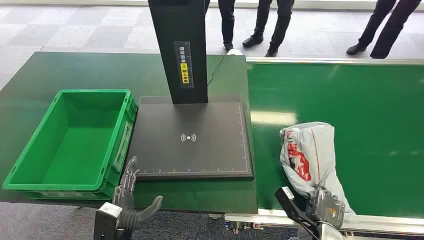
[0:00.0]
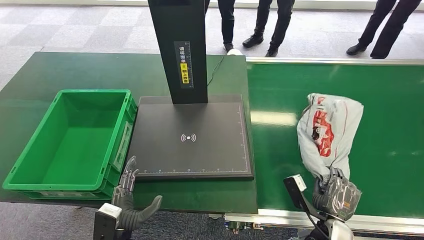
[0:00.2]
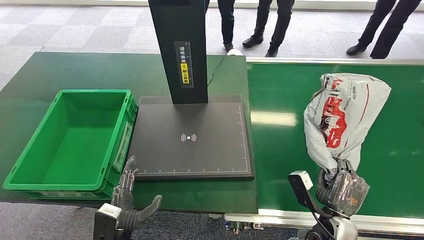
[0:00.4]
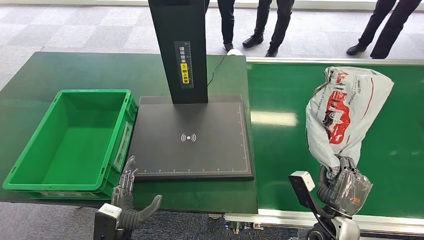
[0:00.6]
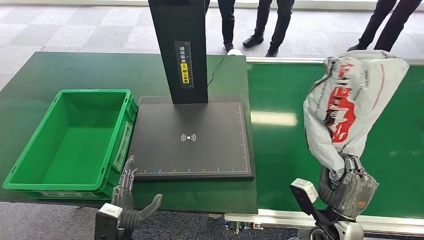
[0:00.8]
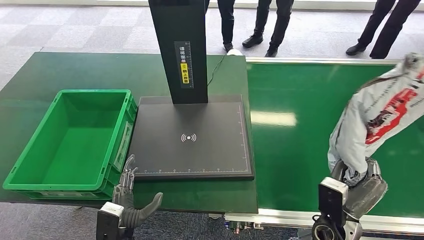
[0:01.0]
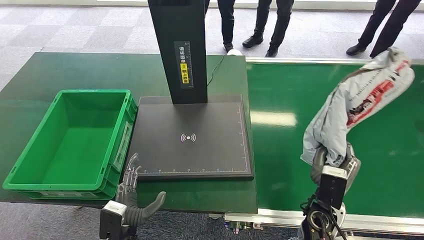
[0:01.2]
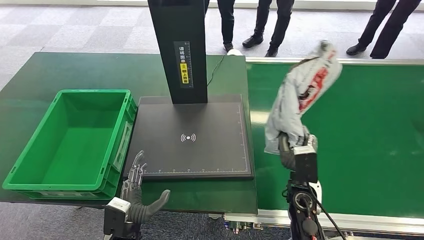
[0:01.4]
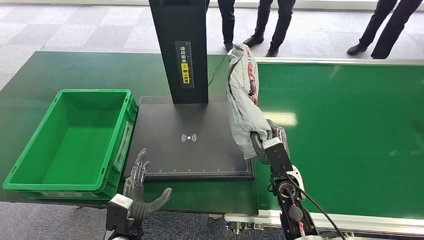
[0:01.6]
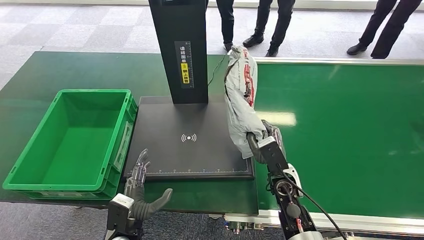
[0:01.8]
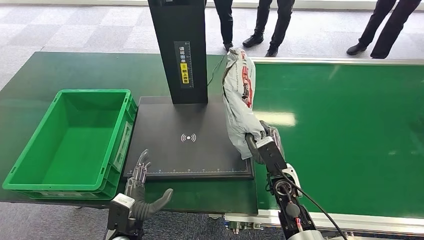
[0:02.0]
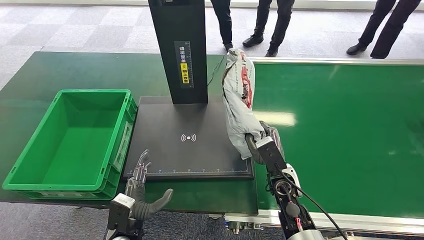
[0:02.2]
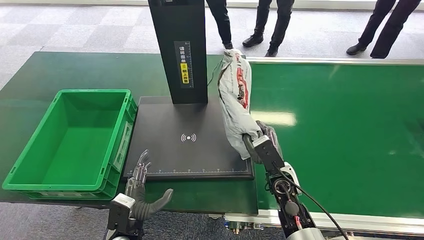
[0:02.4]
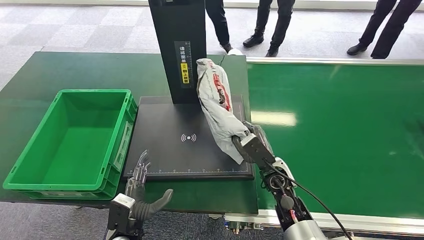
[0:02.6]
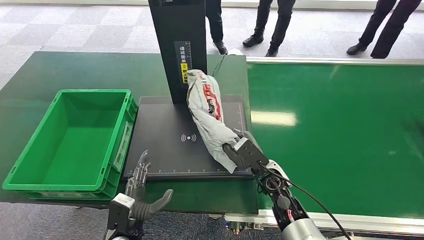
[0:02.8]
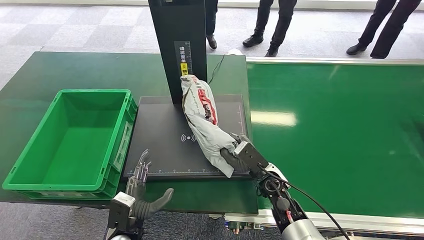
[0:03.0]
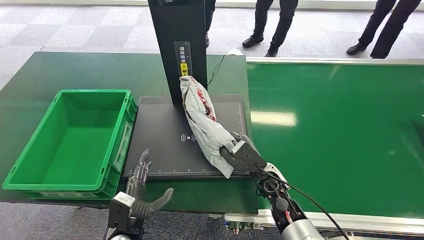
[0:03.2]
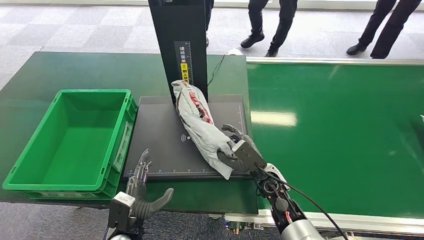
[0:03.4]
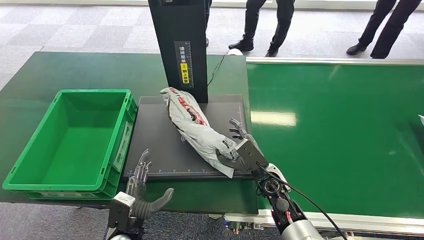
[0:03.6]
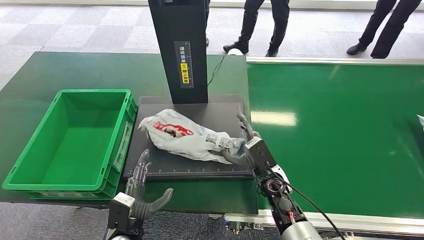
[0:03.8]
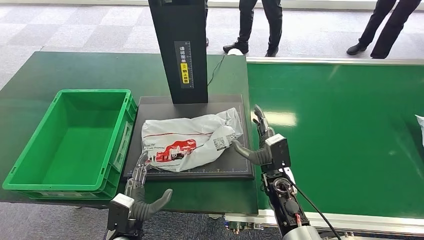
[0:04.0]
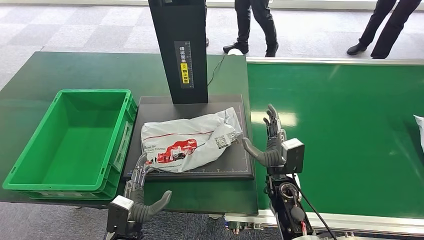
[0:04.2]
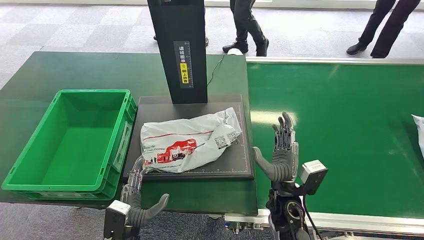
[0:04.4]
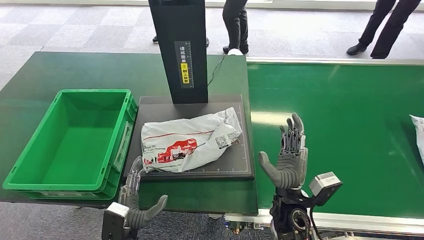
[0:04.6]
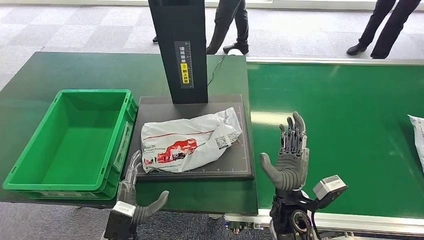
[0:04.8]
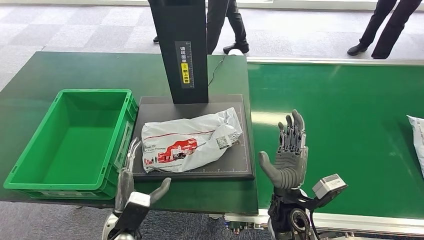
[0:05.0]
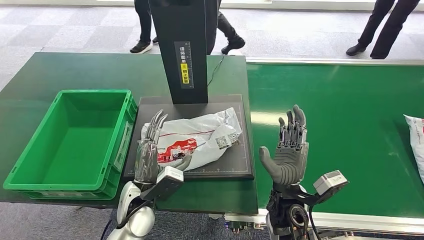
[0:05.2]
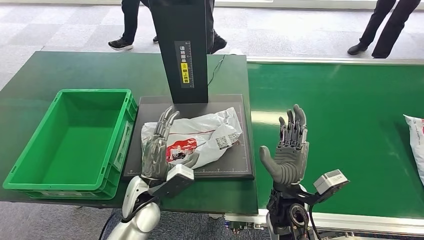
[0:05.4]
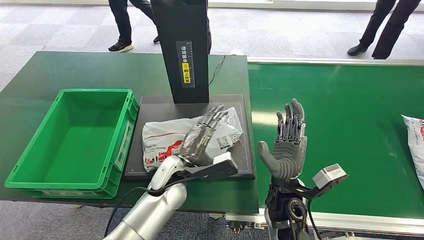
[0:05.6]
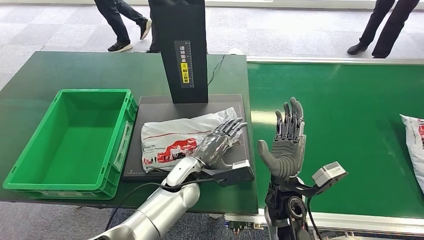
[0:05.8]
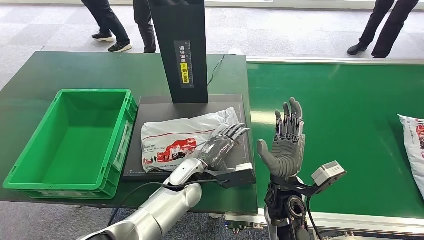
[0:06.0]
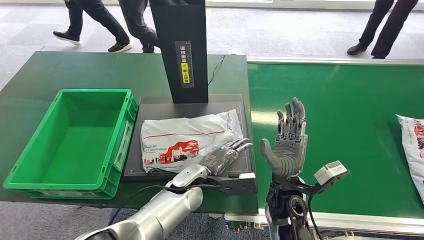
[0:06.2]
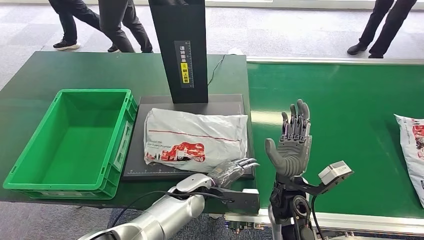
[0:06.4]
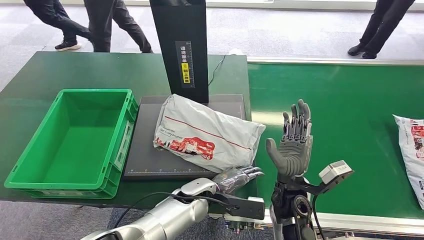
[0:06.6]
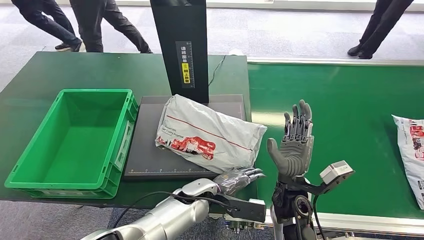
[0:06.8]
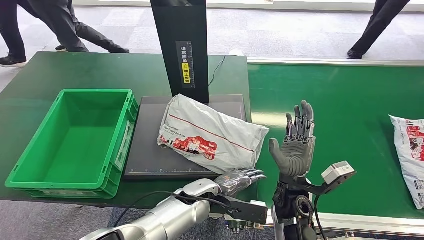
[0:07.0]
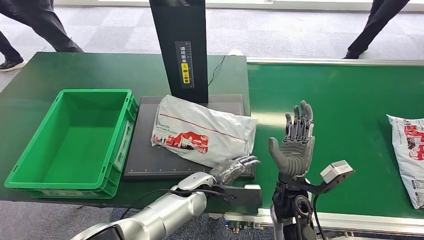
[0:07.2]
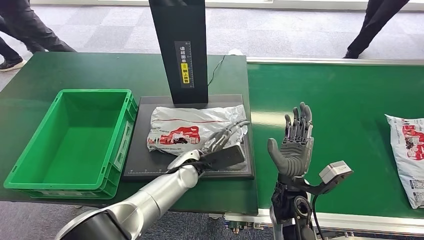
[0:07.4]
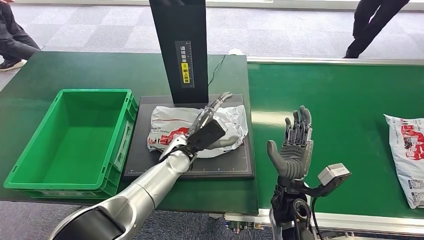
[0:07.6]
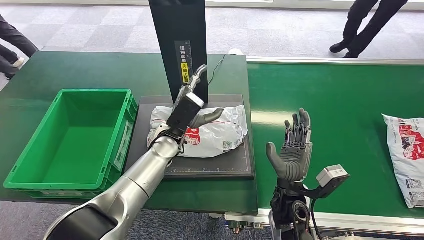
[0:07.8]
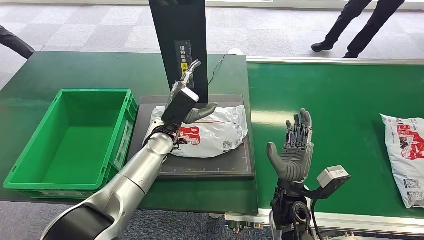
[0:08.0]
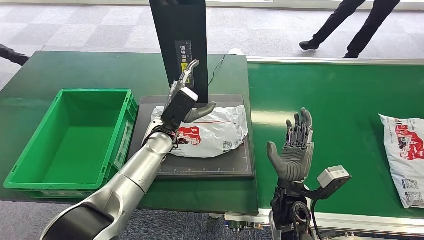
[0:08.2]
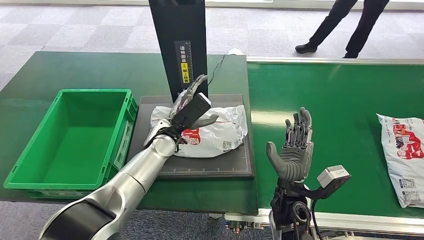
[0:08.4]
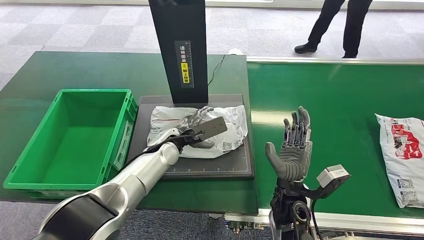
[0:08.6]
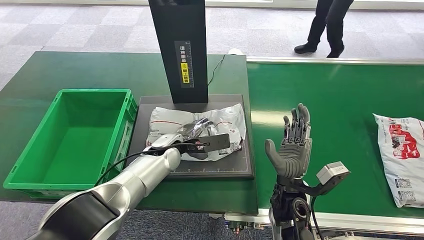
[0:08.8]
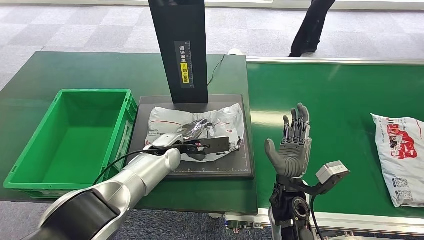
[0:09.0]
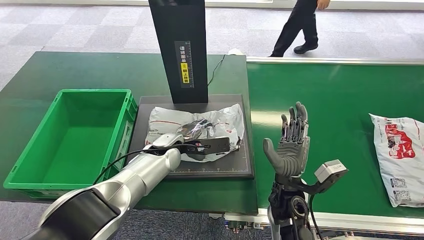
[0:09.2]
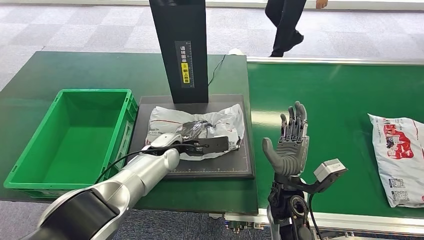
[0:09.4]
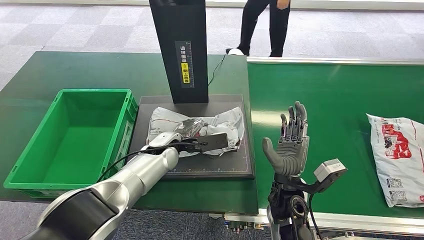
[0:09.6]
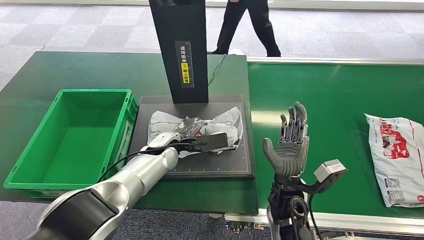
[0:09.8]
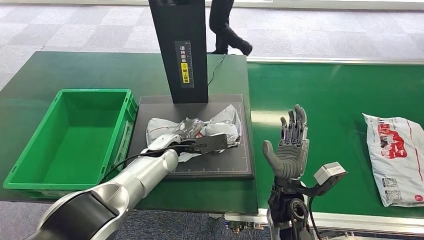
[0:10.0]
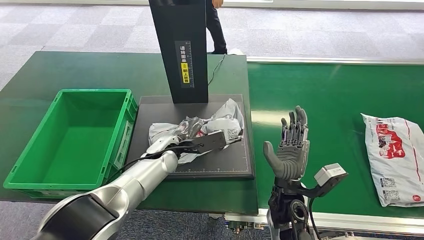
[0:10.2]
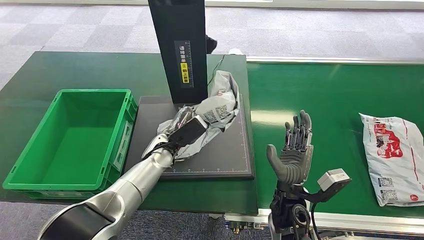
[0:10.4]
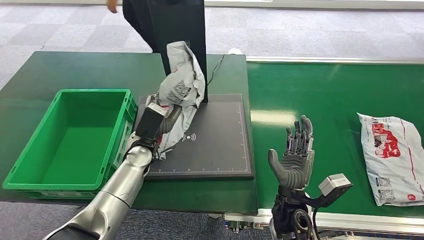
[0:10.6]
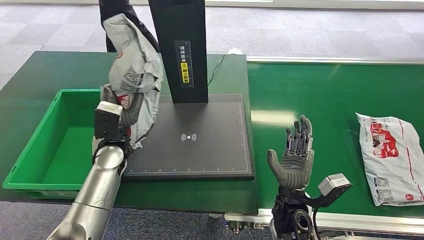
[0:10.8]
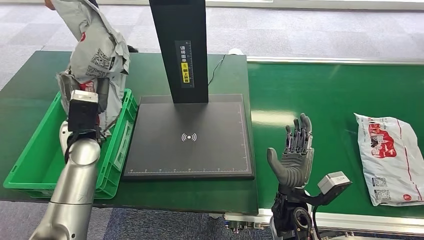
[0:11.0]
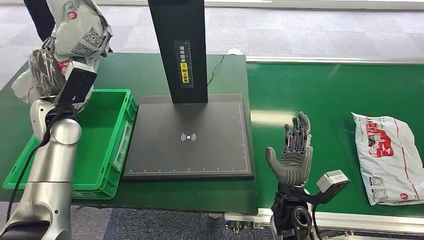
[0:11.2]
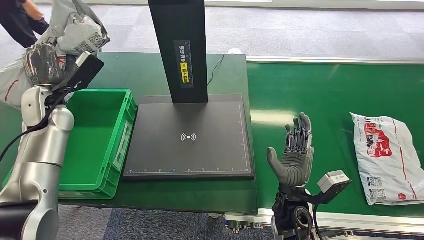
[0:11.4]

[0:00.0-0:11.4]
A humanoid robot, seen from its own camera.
Step, 0:00.0 to 0:00.4: Pick up the package from the conveyor belt.
0:01.4 to 0:02.8: The right hand goes approximately 5 cm to the left.
0:04.2 to 0:05.6: The left hand is displaced forward, upward and to the right by about 20 cm, while the right hand heads upward, covering about 5 cm.

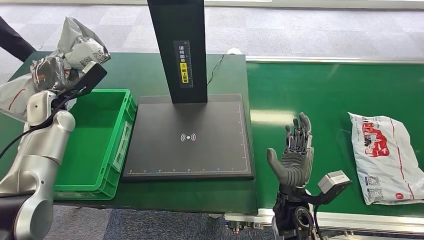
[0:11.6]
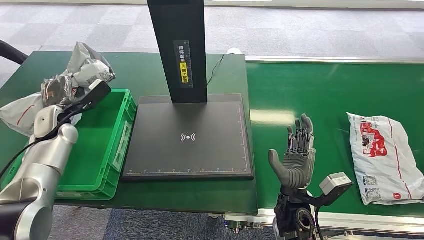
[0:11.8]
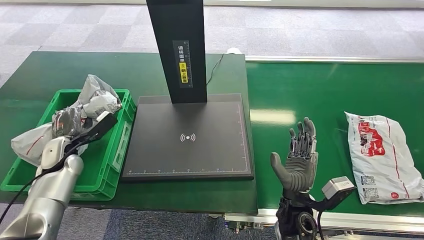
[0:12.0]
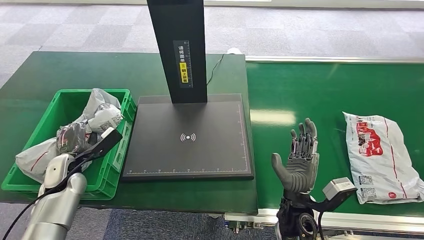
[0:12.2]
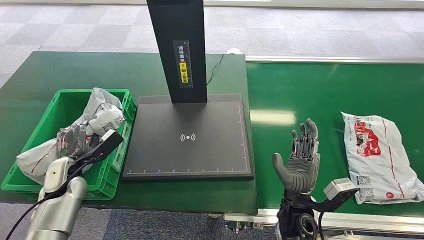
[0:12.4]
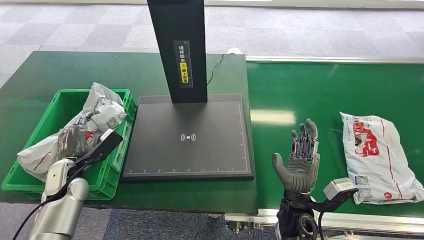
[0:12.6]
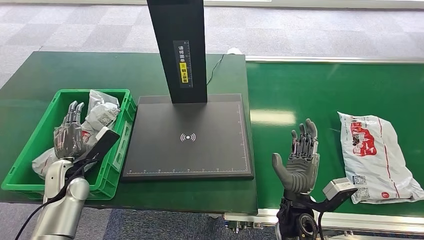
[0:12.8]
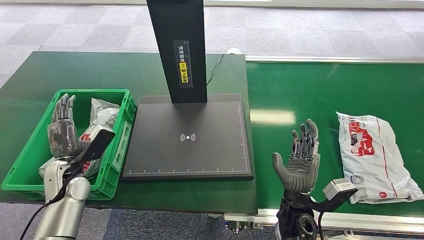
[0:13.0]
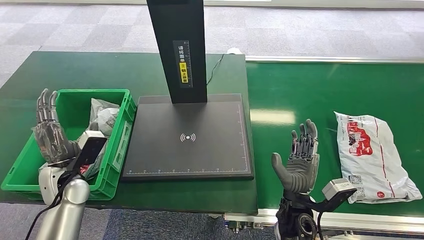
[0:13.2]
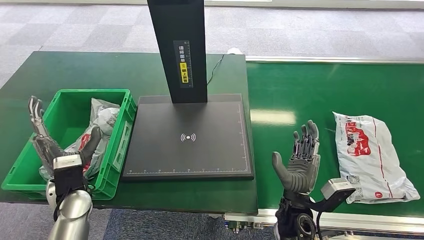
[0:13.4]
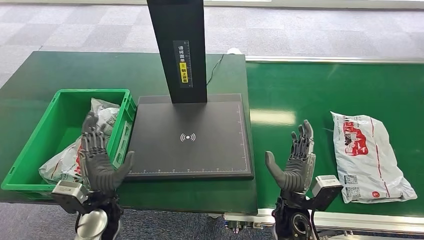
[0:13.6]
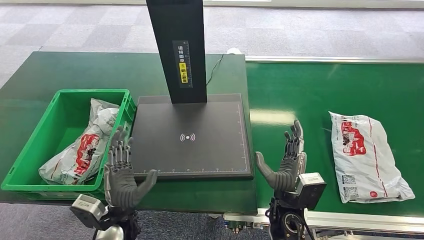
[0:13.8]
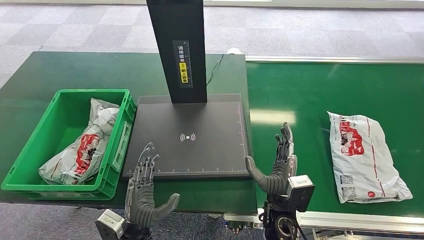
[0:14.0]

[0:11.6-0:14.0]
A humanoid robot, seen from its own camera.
Step, 0:13.8 to 0:14.0: Place the package into the parcel locker.
0:12.8 to 0:14.0: The left hand moves to the right and backward, about 25 cm.

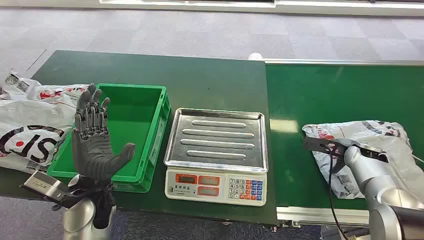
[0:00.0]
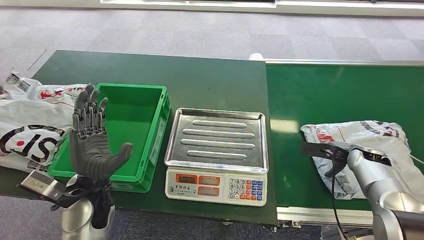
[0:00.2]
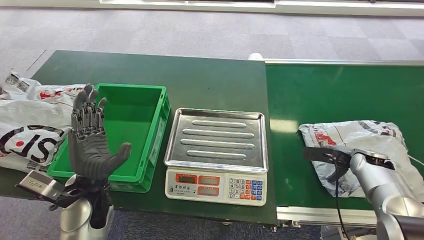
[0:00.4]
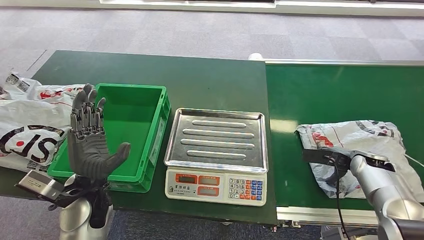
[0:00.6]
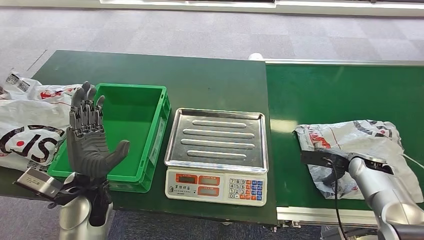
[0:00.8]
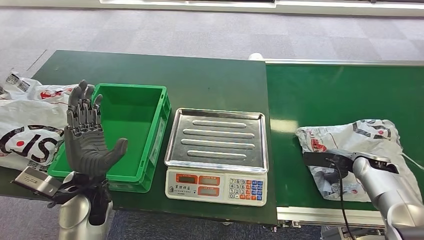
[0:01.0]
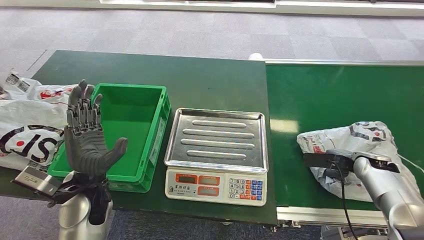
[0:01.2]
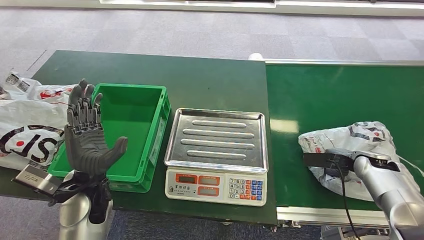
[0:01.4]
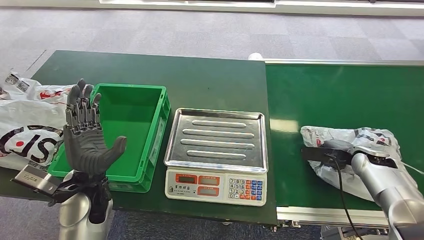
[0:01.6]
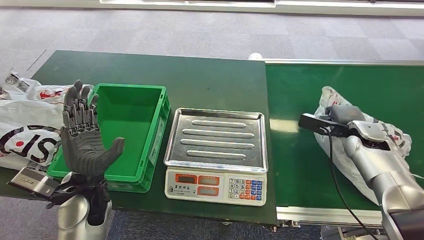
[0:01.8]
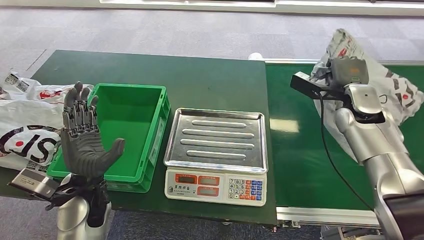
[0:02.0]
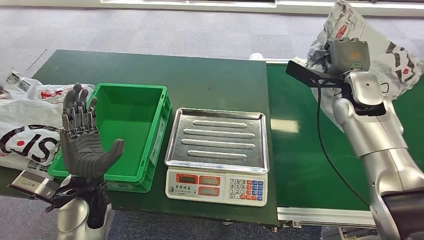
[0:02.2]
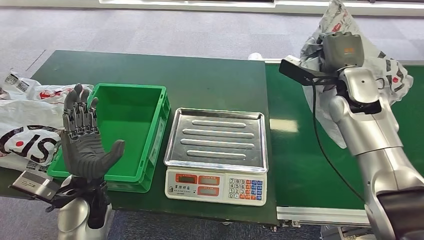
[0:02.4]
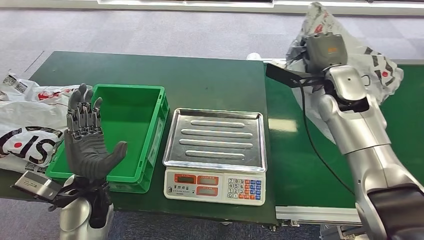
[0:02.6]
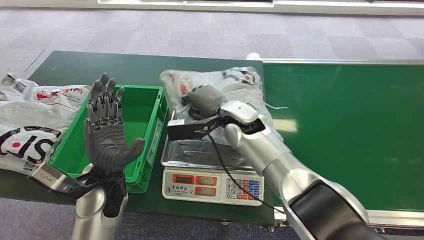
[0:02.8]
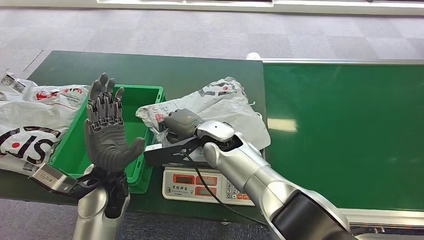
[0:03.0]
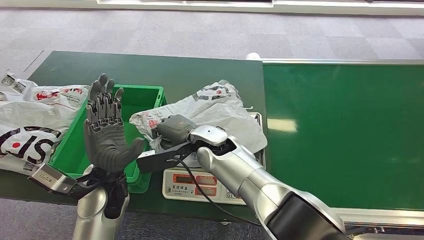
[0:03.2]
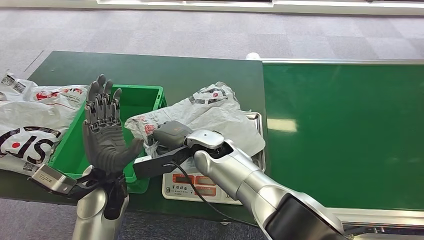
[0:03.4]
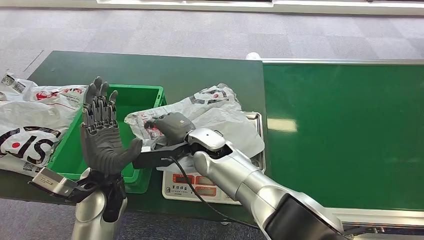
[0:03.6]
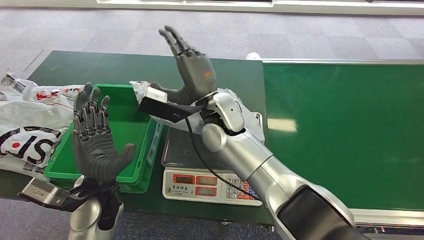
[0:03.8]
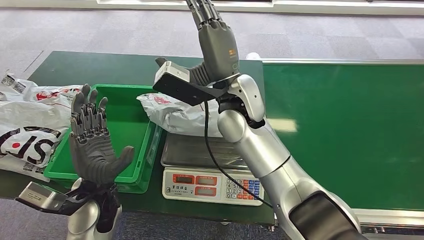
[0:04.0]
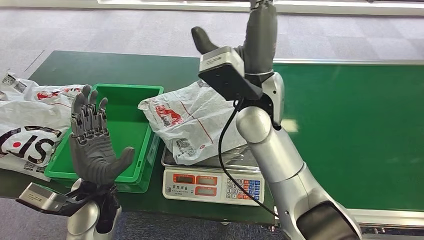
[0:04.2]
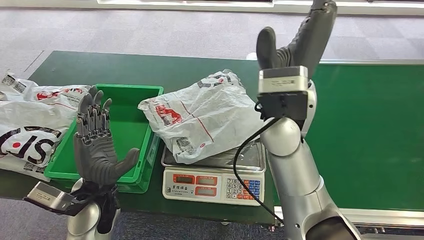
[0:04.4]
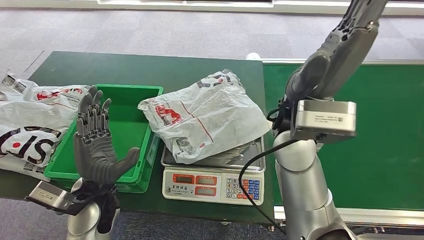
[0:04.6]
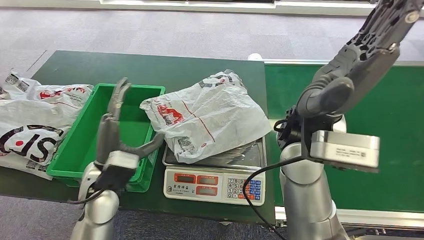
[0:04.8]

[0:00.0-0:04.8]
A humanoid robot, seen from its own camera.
Step, 0:00.0 to 0:02.2: Pick up the package from the conveyor belt.
Step, 0:02.4 to 0:04.8: Place the package onto the inbound machine.
